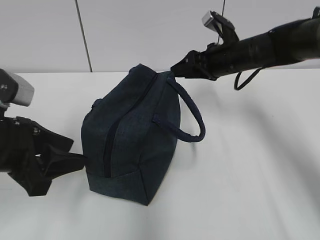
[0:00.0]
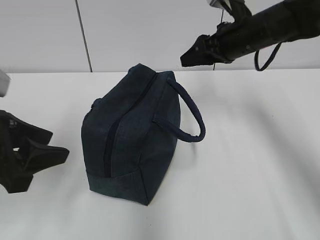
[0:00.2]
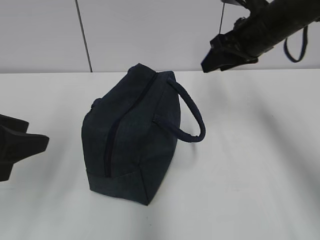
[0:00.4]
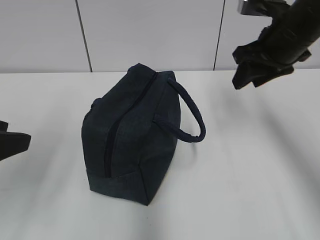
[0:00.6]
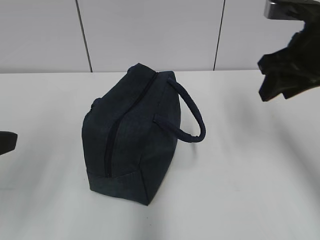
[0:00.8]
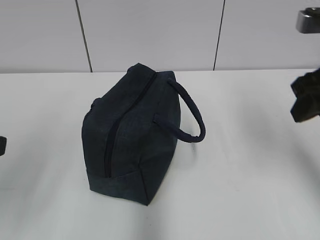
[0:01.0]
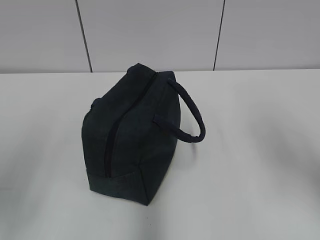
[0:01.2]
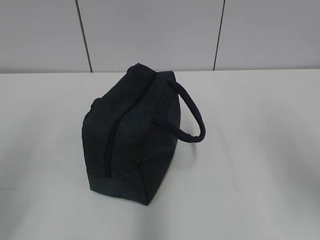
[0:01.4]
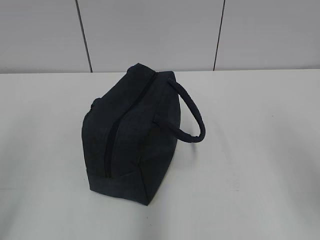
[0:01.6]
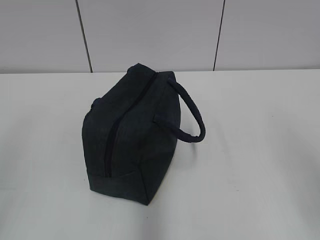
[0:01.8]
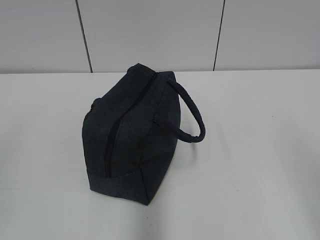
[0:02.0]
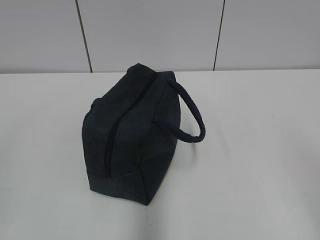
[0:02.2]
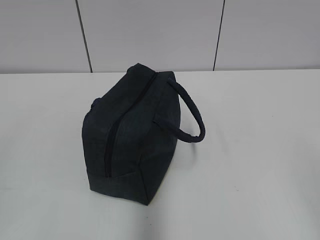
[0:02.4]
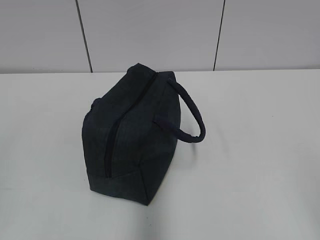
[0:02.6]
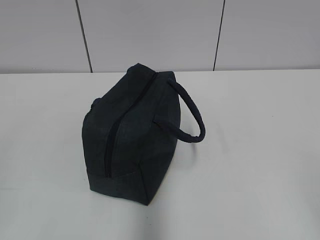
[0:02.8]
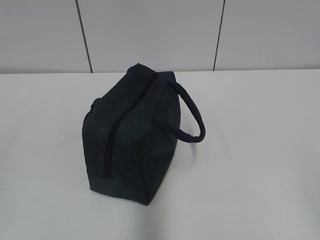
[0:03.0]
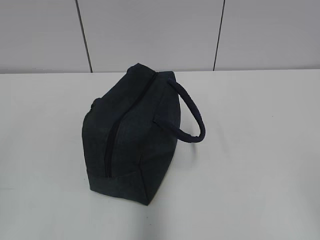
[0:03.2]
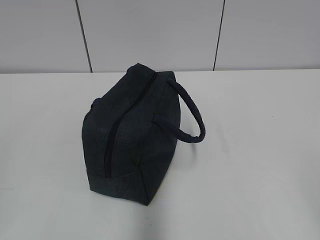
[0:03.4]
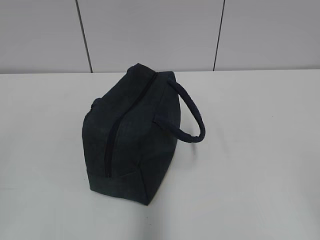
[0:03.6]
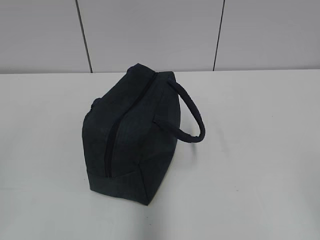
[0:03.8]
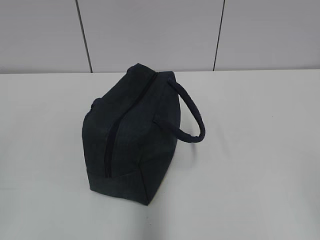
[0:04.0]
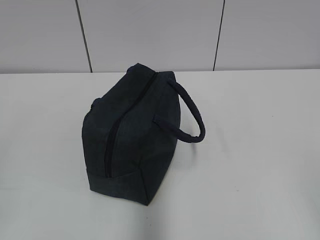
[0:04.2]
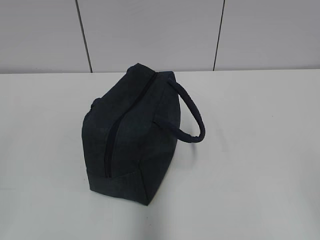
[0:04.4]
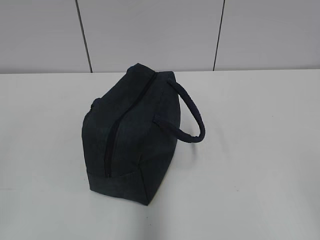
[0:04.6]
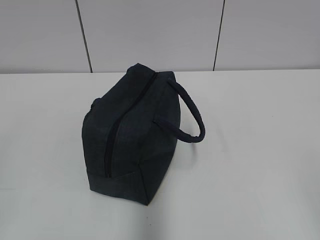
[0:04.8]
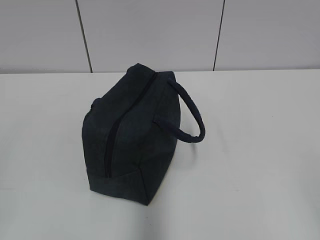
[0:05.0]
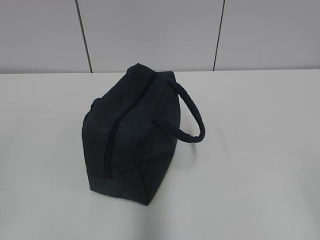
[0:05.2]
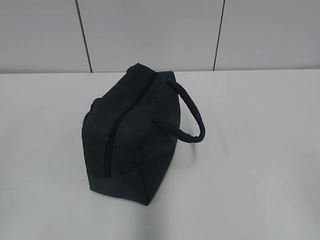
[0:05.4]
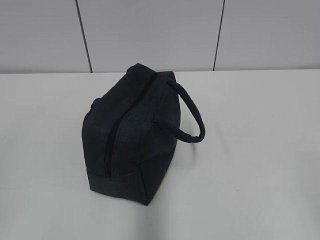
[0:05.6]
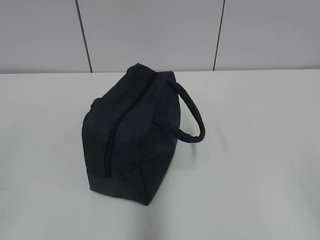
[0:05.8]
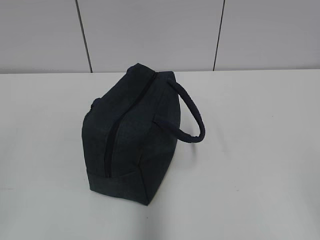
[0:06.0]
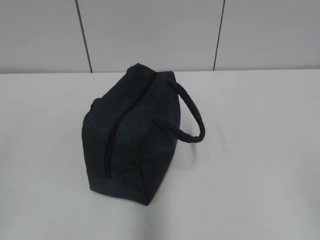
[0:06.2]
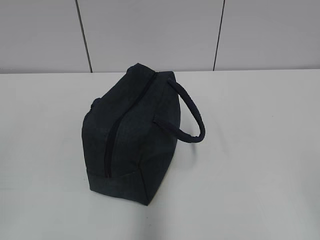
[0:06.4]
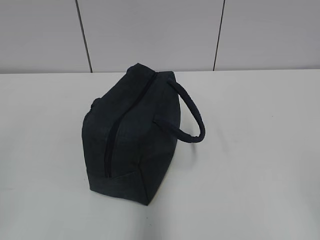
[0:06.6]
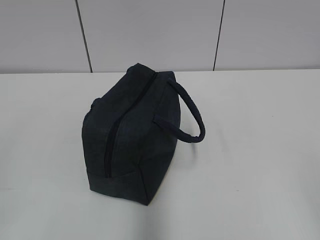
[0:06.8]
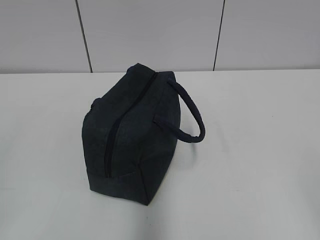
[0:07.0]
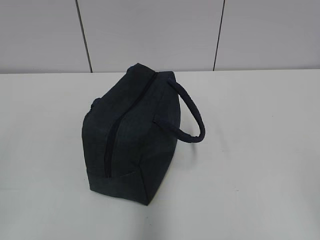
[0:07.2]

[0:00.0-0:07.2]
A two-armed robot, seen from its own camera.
0:00.0 to 0:01.4: The right gripper moves backward, approximately 30 cm, while the left gripper shifts approximately 15 cm backward, upward and to the left.
0:01.4 to 0:02.8: The left gripper moves backward, roughly 10 cm. The right gripper moves backward, some 15 cm.
0:04.4 to 0:07.2: Both grippers stay about where they are.
